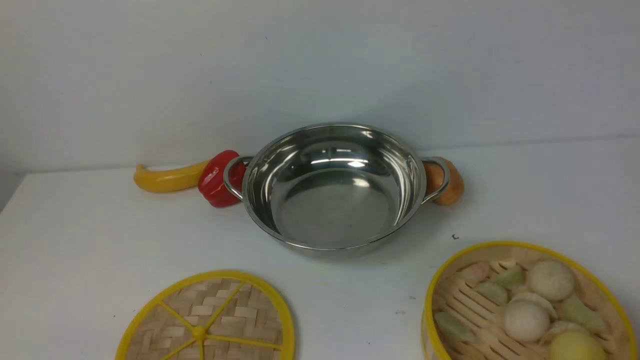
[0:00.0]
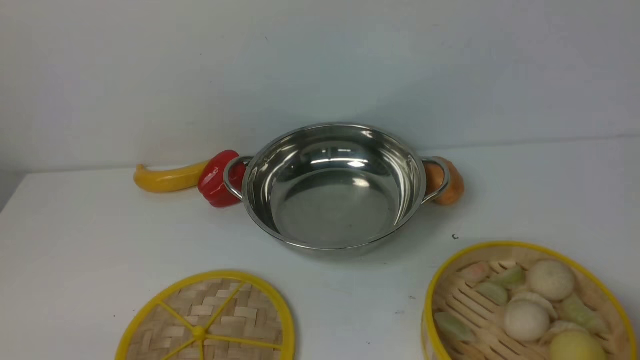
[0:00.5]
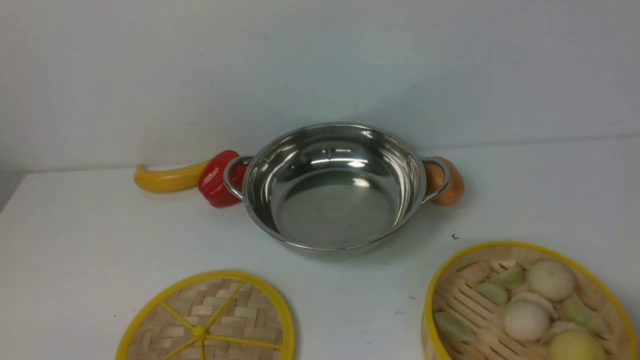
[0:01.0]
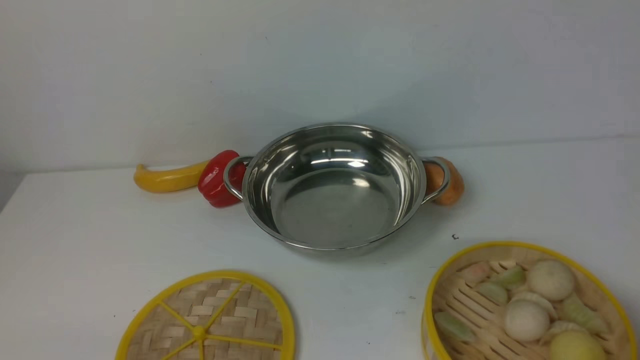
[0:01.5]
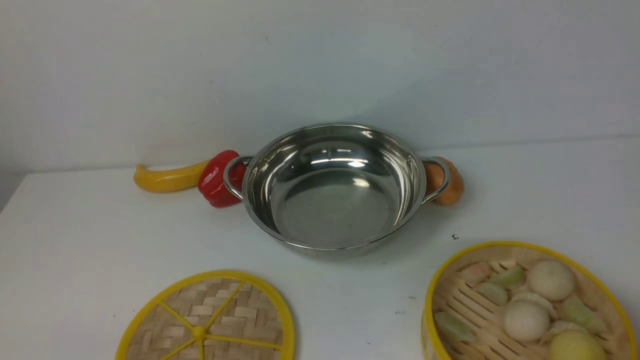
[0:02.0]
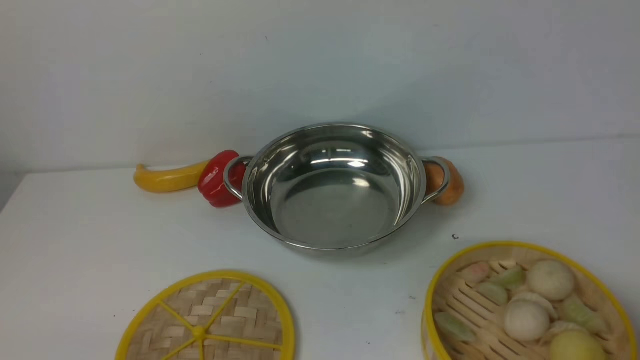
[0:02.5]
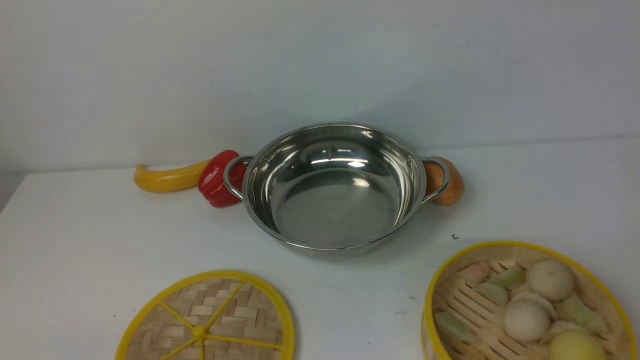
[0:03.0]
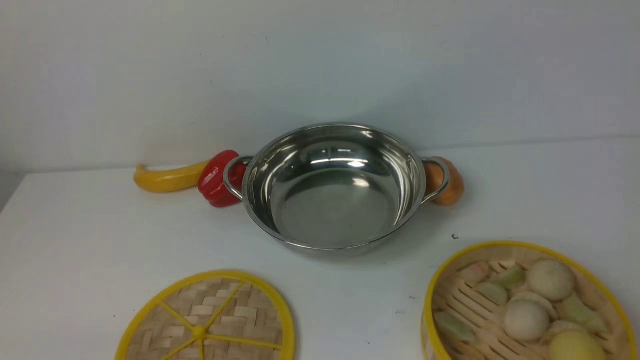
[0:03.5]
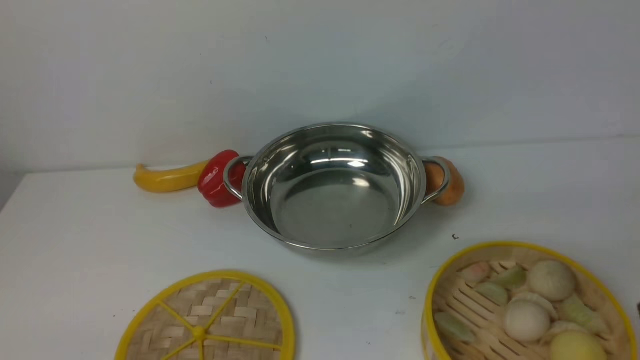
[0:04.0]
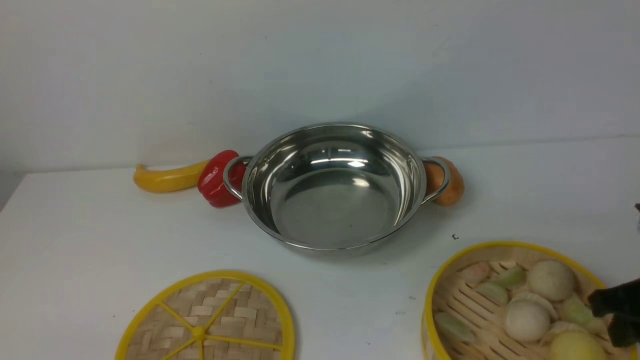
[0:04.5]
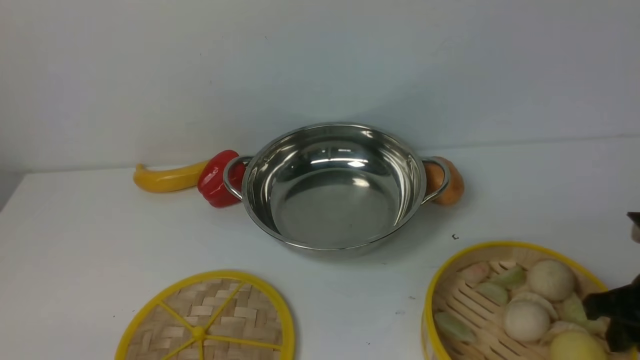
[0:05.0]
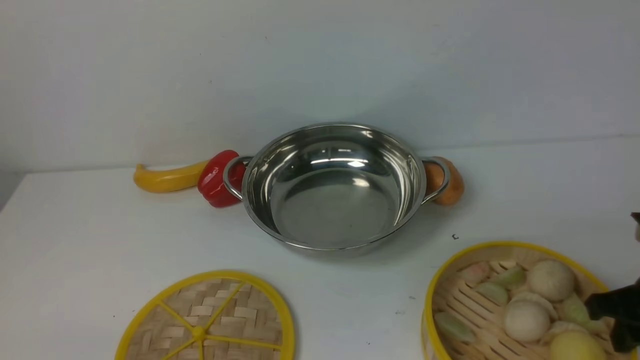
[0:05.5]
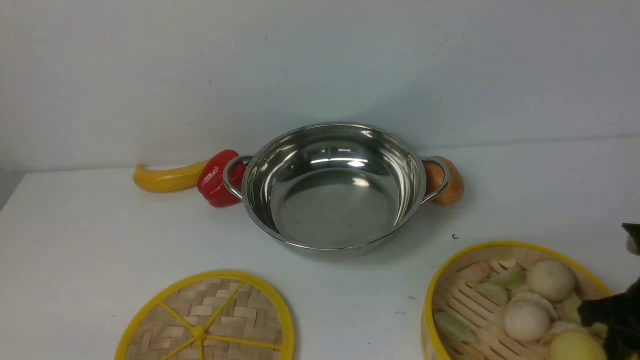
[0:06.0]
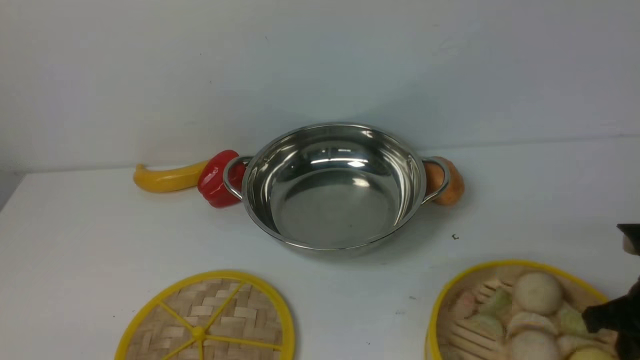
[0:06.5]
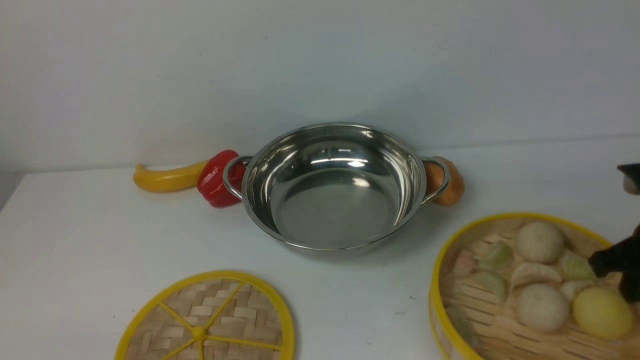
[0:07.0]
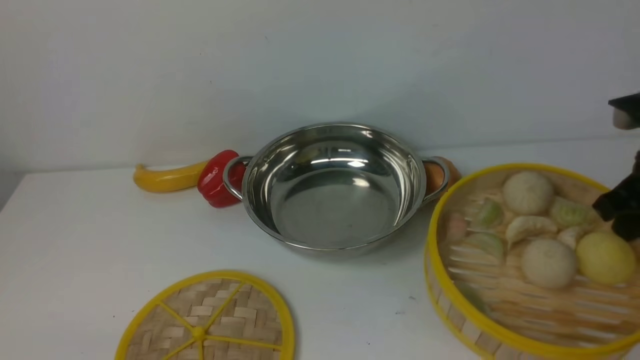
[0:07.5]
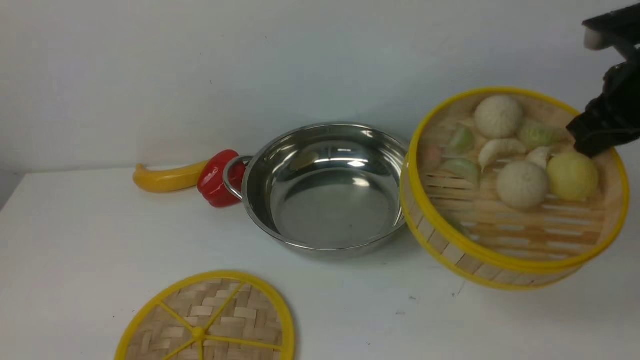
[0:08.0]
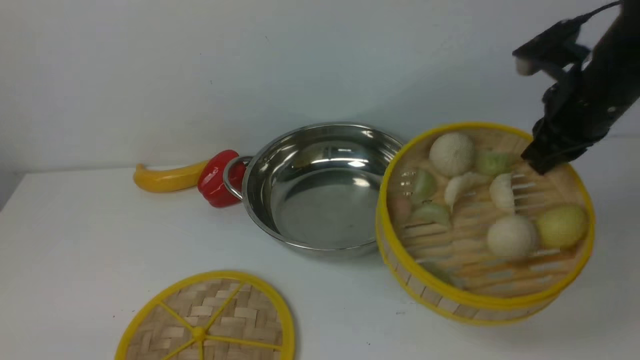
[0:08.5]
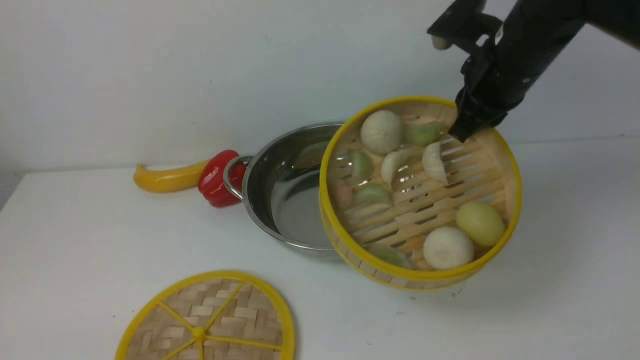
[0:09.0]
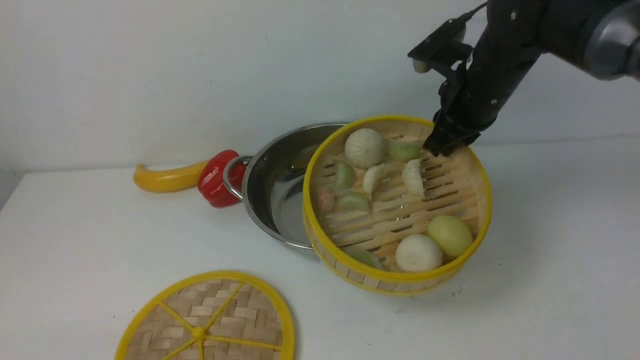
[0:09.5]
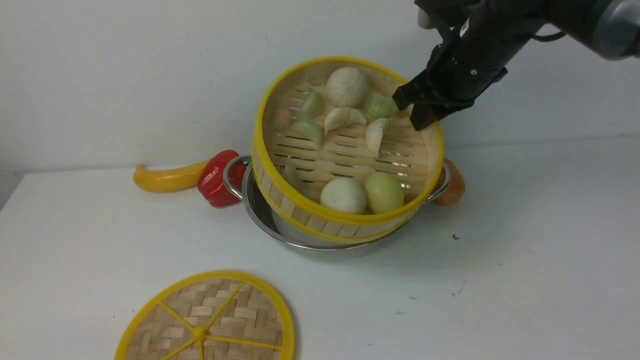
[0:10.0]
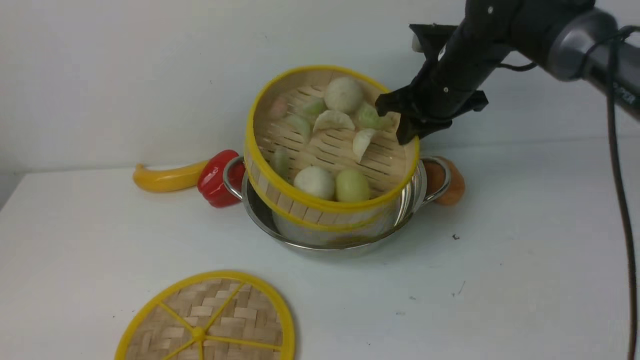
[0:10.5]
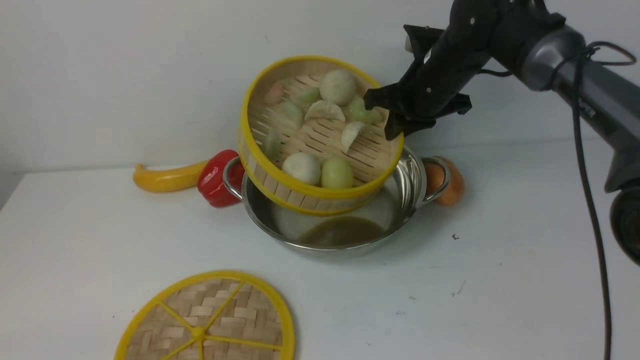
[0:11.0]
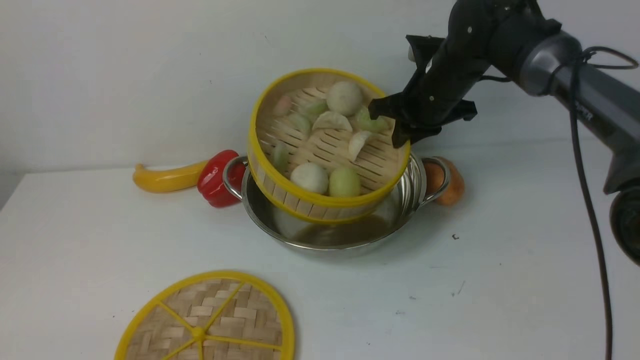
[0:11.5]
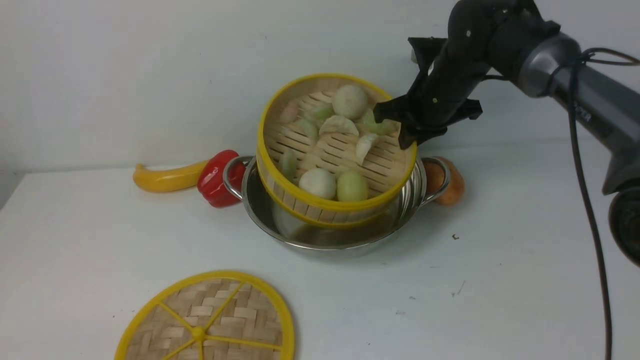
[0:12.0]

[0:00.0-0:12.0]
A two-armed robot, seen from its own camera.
Task of the whole recording: place the steamer in the pot on the white table, and put the lid on the steamer.
Step, 0:00.0 to 0:07.0: use the right arm to lift the steamer closest to it.
0:04.0 to 0:06.0: The right gripper goes approximately 15 cm downward and forward.
0:06.0 to 0:08.0: The right gripper travels upward and forward by roughly 15 cm, and closes its fingers.
0:08.0 to 0:10.0: The right gripper is displaced to the left and forward by about 15 cm.
0:10.0 to 0:12.0: The right gripper moves downward and forward, some 10 cm.

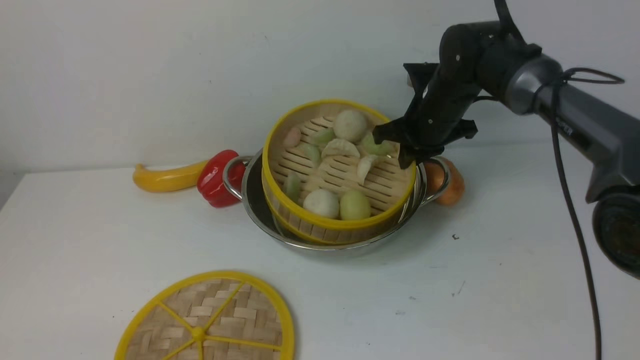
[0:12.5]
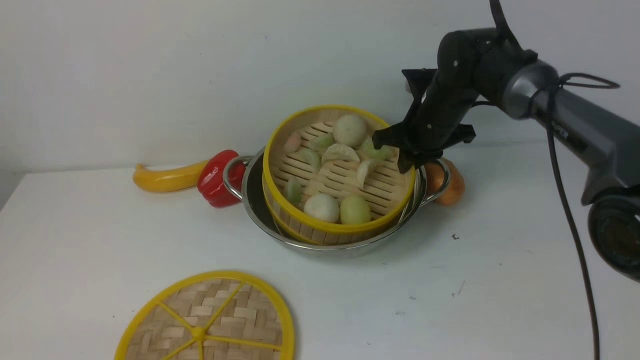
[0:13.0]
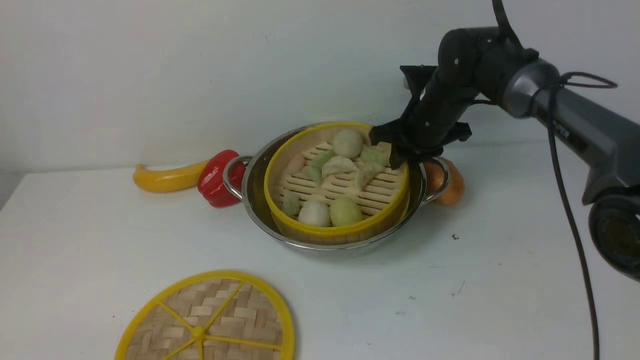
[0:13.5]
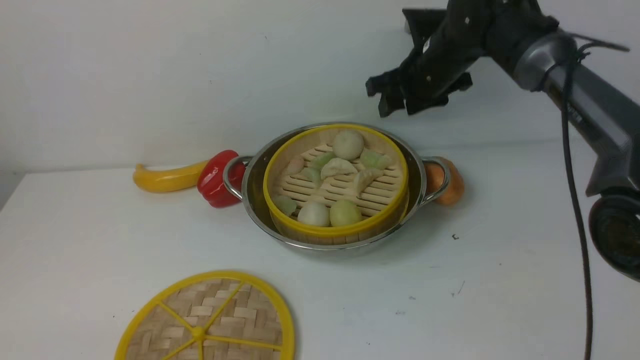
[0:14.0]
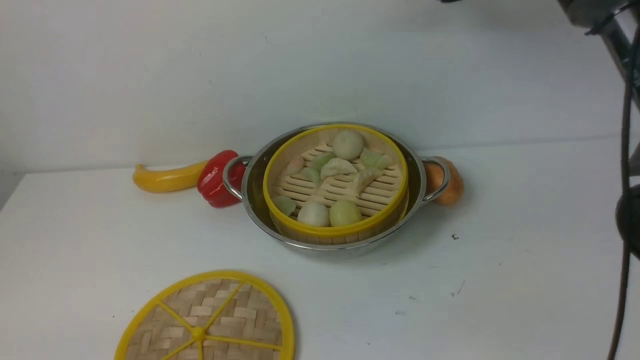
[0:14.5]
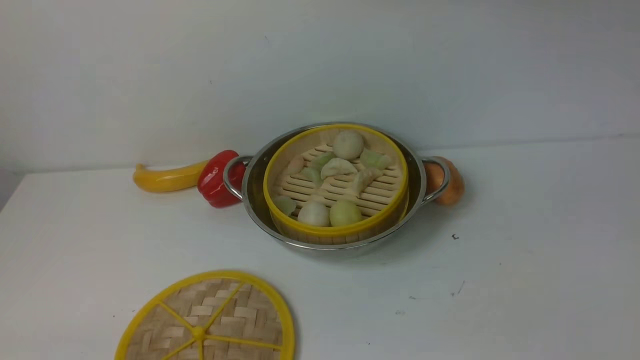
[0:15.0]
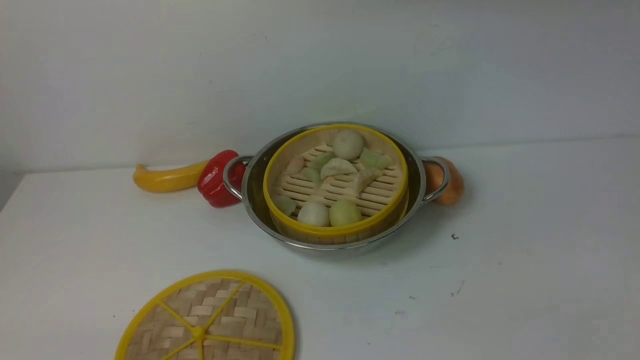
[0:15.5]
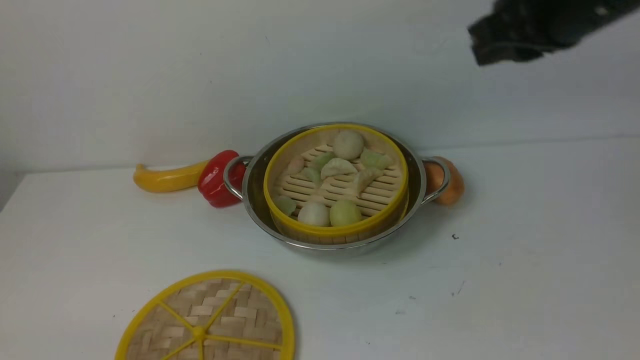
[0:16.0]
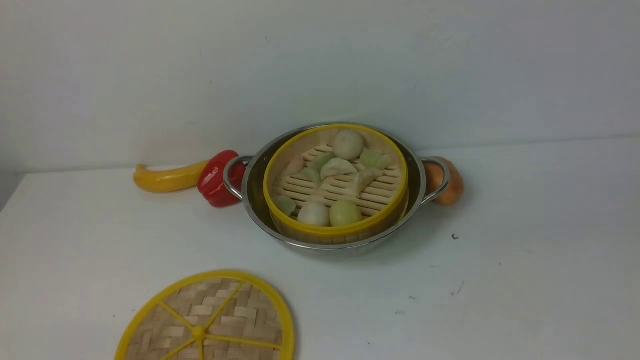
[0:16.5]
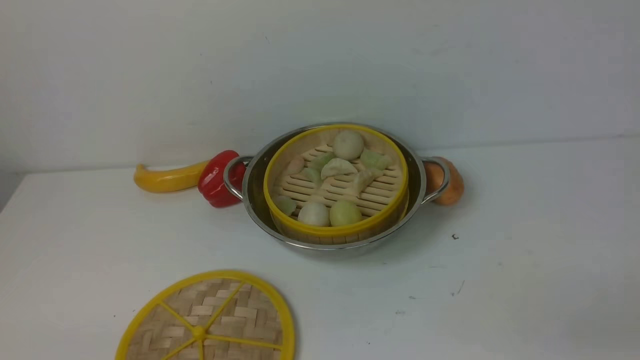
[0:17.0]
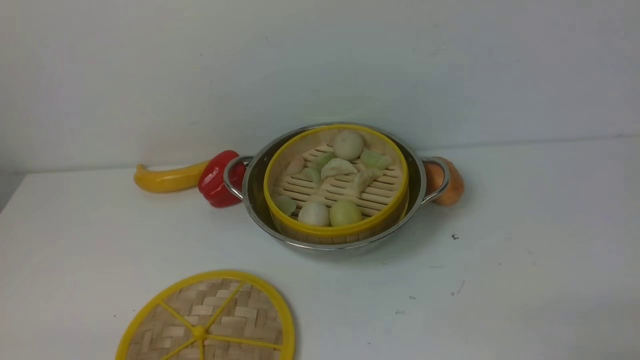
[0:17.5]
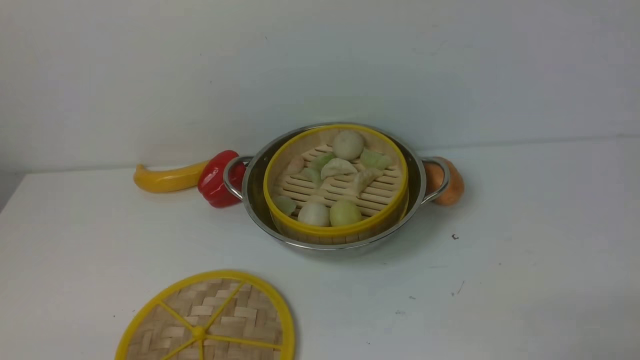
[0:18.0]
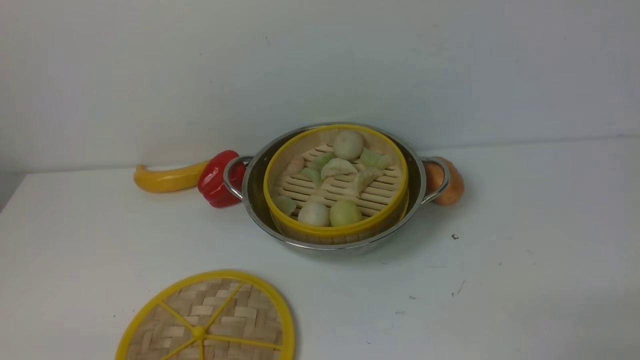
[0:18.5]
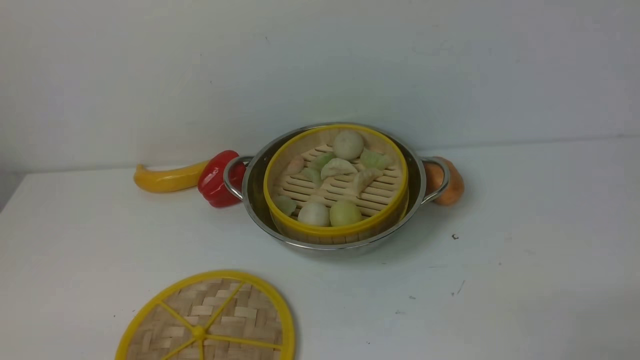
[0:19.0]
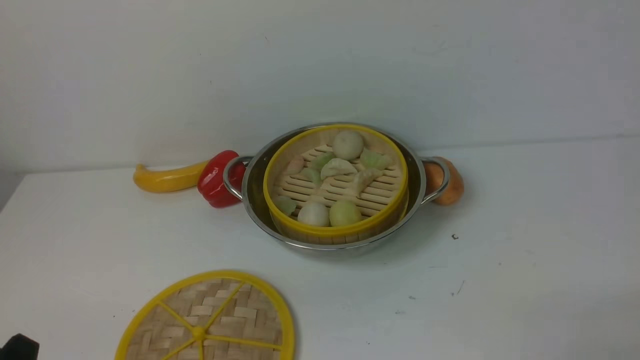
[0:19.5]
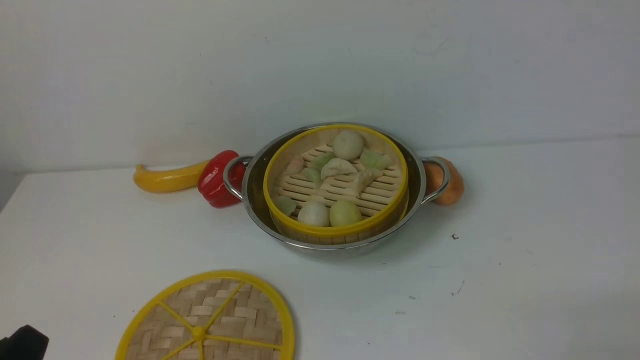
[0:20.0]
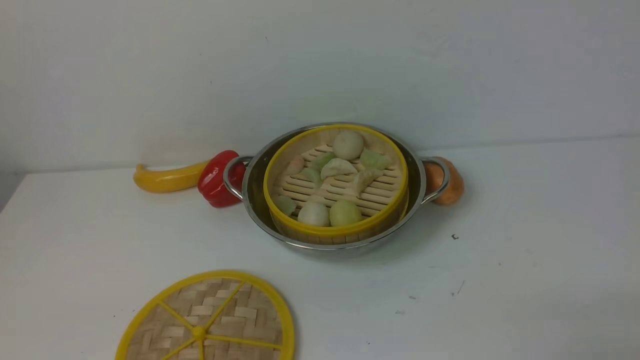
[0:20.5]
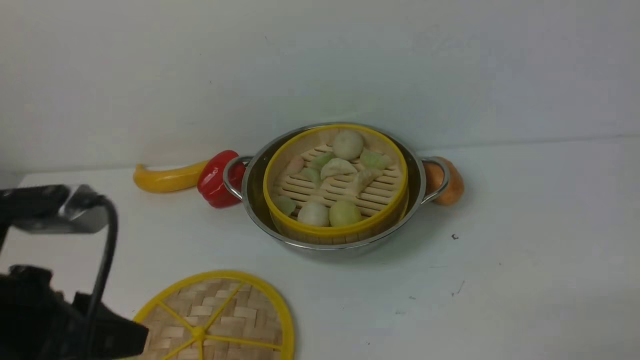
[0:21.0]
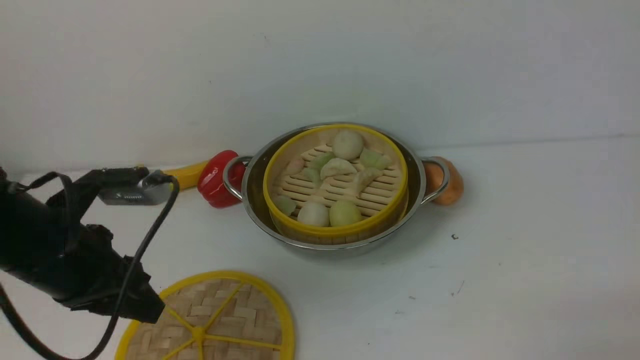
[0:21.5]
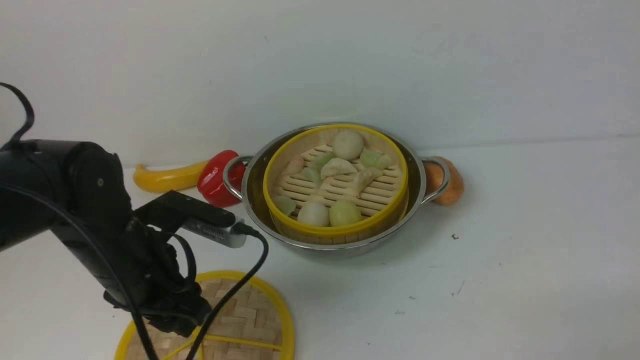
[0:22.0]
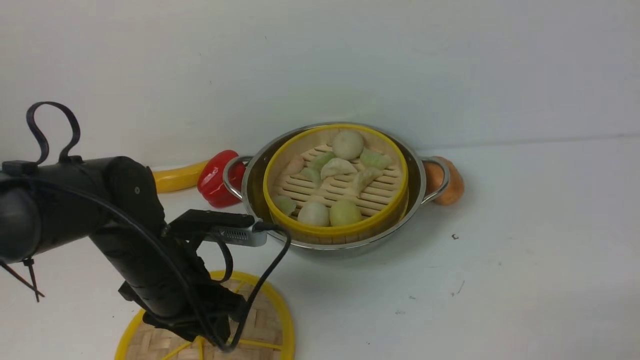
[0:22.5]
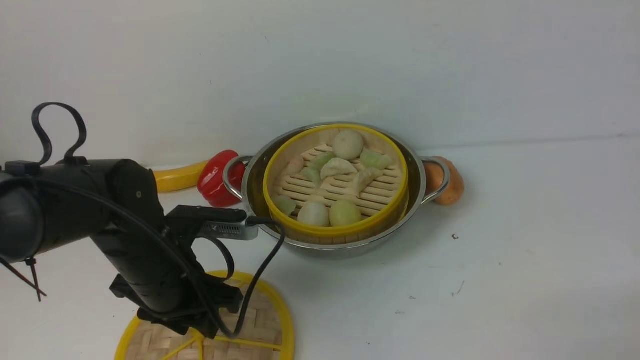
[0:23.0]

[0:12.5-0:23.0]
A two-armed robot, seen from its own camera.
Task of the whole recording: place the steamer in the pot on the white table, and put the lid on the steamer.
0:12.5 to 0:14.5: The right gripper is displaced upward by roughly 15 cm, and opens.
0:14.5 to 0:16.5: The right gripper shifts roughly 35 cm backward and to the right, and closes up.
0:19.0 to 0:21.0: The left gripper goes about 15 cm upward and forward.
0:21.0 to 0:23.0: The left gripper shifts approximately 20 cm forward and downward.
